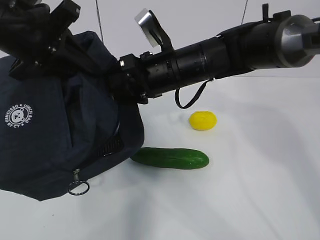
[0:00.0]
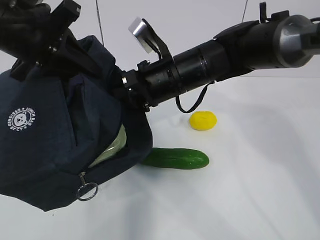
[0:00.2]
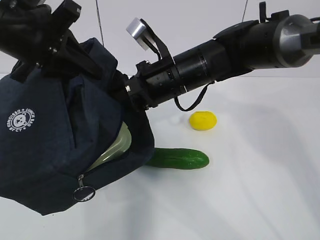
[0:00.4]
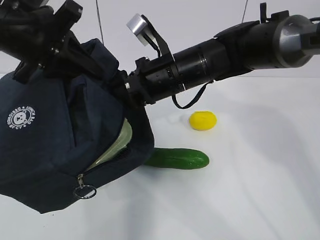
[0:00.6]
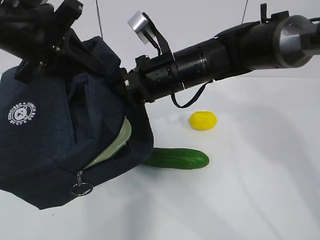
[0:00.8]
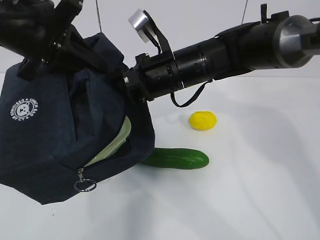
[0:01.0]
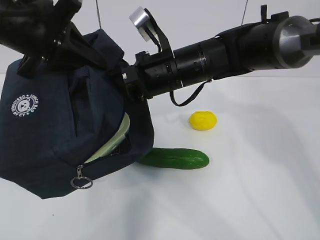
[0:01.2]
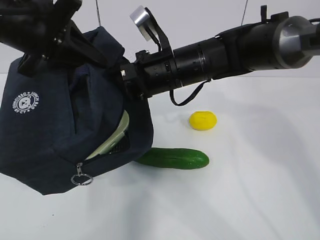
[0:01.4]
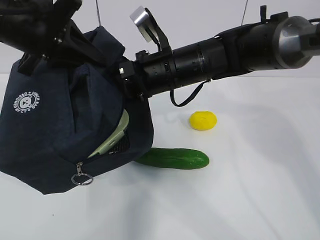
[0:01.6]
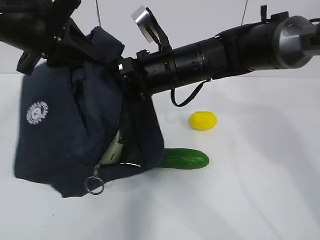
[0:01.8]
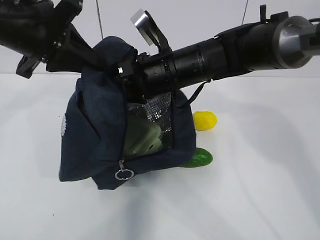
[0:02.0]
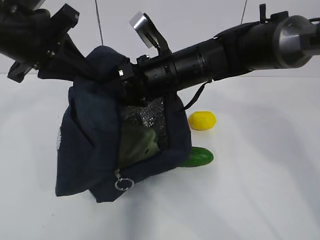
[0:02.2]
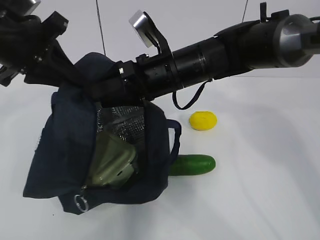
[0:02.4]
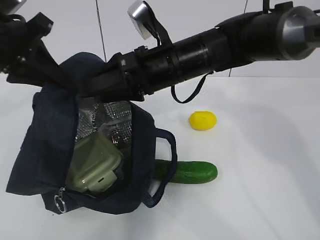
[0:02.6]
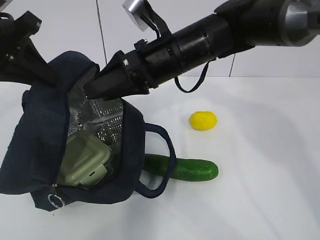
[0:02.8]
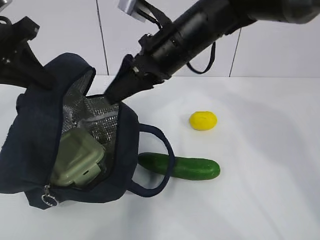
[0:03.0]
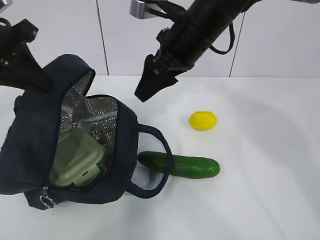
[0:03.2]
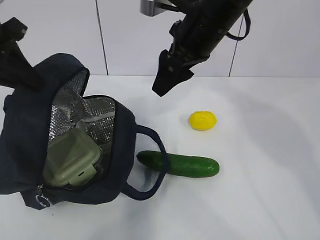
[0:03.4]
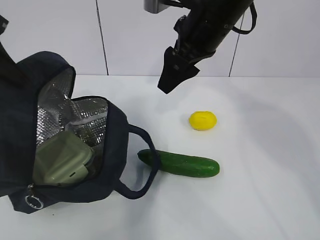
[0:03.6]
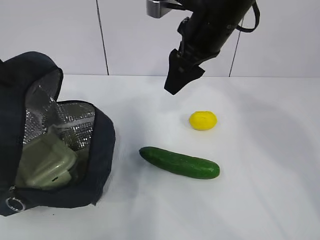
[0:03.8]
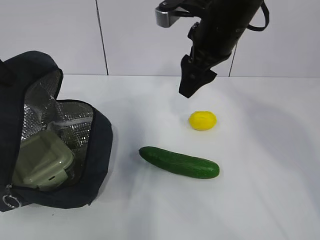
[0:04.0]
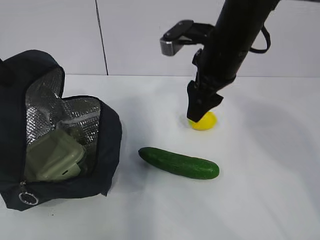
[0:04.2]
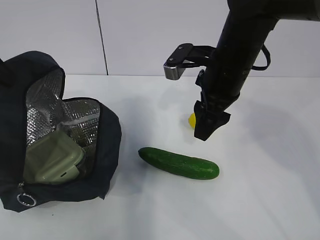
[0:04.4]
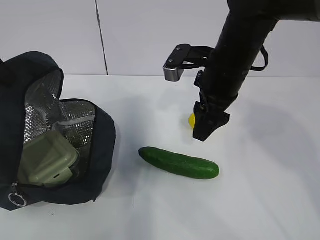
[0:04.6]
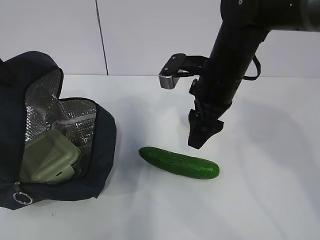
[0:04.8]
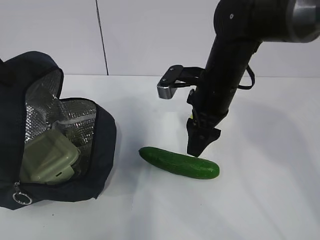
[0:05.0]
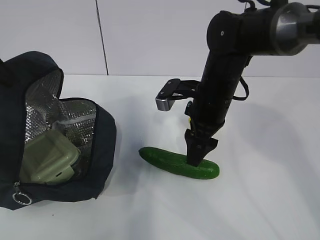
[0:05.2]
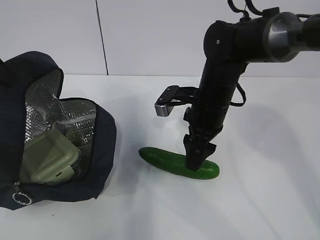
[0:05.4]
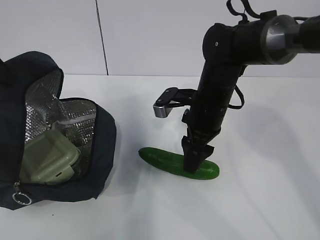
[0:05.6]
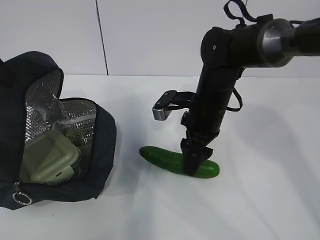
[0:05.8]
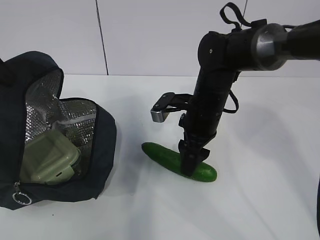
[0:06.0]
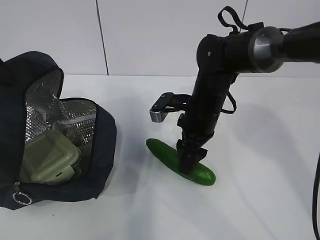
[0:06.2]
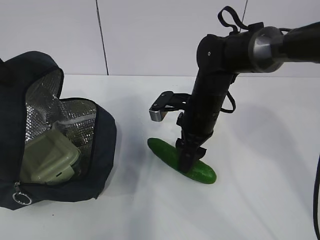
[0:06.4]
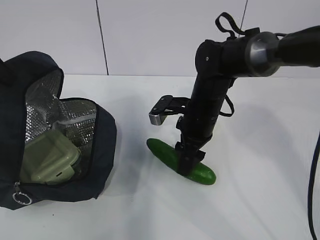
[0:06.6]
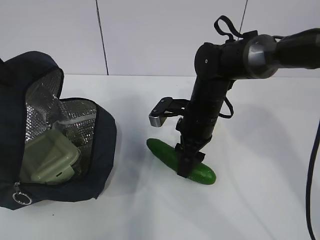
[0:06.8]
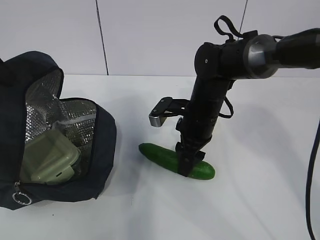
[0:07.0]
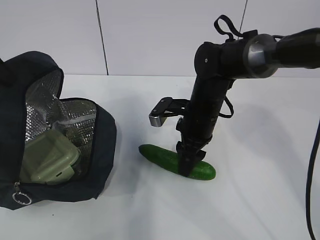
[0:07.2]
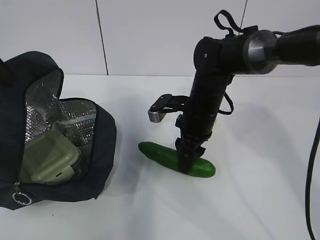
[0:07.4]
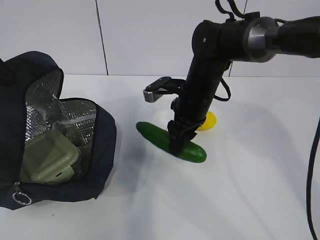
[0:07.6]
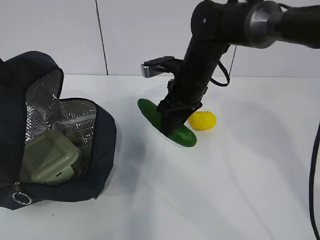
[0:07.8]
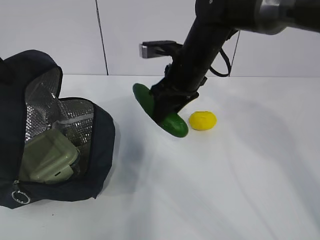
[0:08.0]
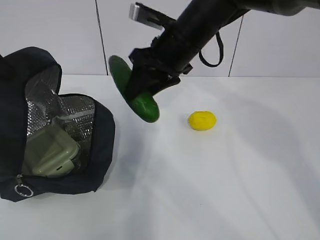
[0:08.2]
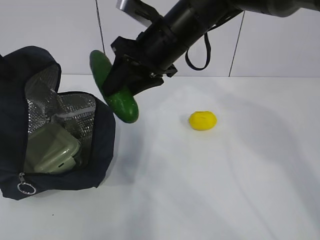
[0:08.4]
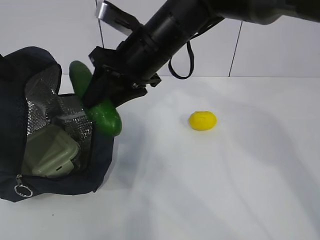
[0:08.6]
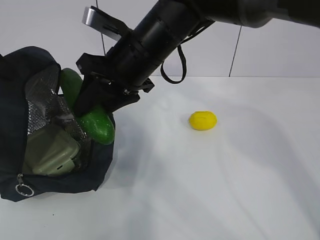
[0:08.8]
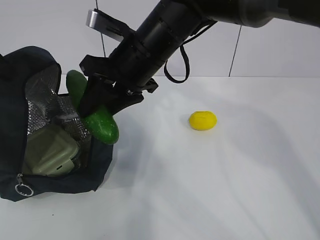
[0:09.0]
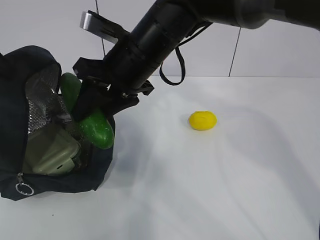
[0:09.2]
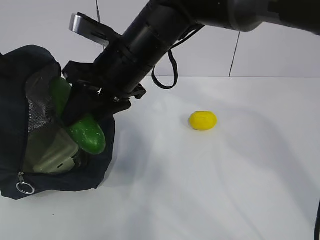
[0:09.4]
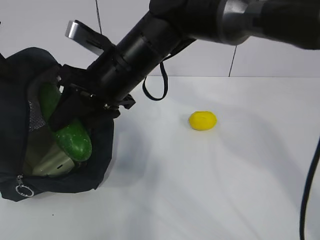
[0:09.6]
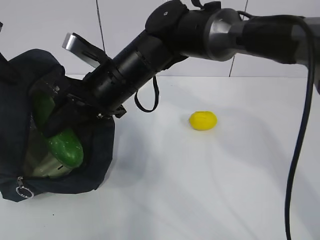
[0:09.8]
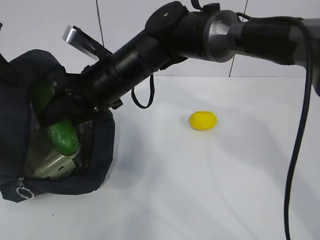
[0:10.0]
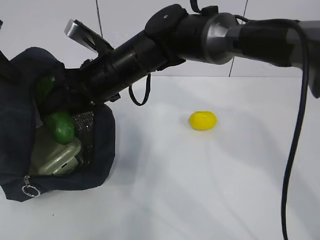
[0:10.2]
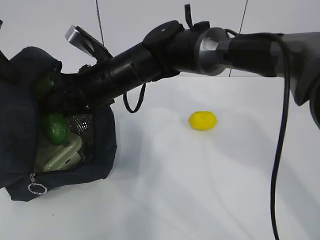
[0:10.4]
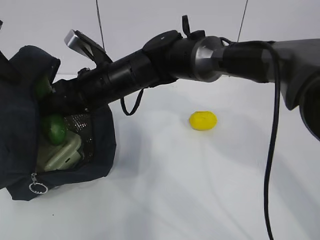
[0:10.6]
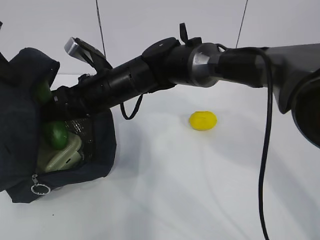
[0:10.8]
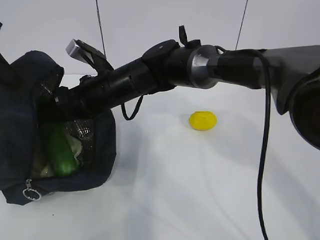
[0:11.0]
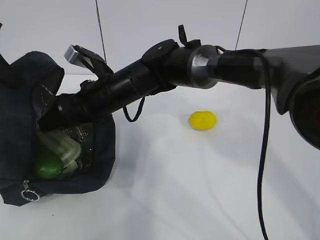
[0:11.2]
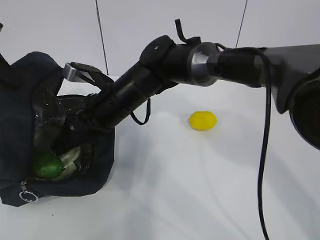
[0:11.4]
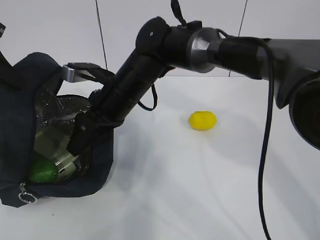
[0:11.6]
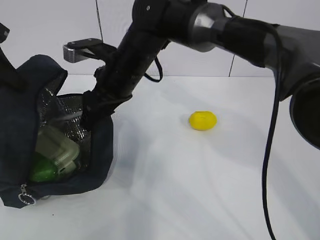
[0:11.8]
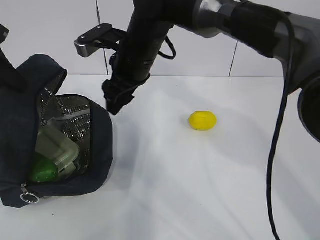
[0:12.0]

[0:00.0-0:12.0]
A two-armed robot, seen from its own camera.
Step, 0:02.0 to 0:05.2: Place it into the bag with your right hand.
Step, 0:05.4 to 0:08.6: Grab the lemon with your right hand.
0:00.0 to 0:01.6: There are only small adjustments of the grippers.
0:01.6 to 0:03.0: The left gripper heads to the left, covering approximately 5 cm.
0:03.0 to 0:04.4: The right gripper goes about 5 cm to the right.
0:04.4 to 0:06.0: The right gripper heads downward, covering approximately 10 cm.
0:06.0 to 0:07.6: The grippers move only a little.
0:07.6 to 0:09.0: The right gripper goes some 15 cm upward and to the left.
0:09.0 to 0:10.4: The right gripper is displaced downward and to the left by approximately 10 cm.
0:10.4 to 0:12.0: The right gripper moves about 5 cm.

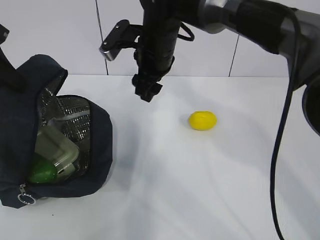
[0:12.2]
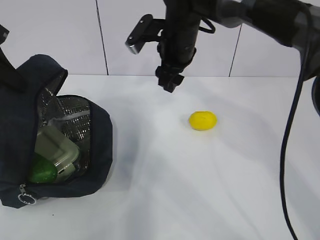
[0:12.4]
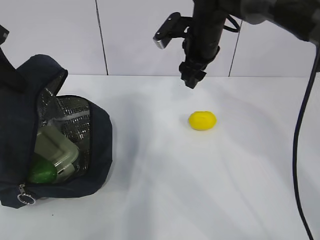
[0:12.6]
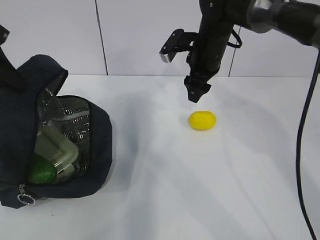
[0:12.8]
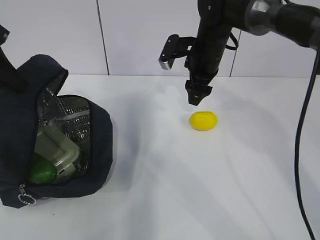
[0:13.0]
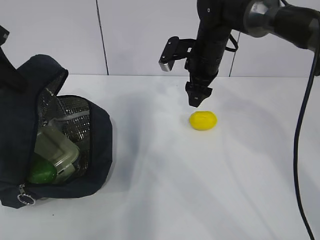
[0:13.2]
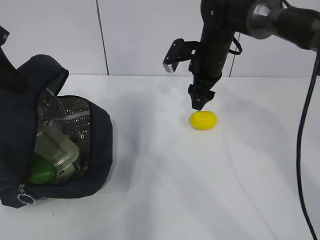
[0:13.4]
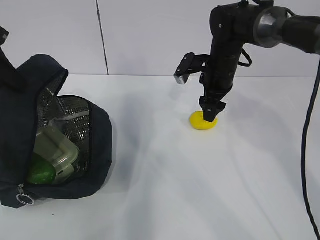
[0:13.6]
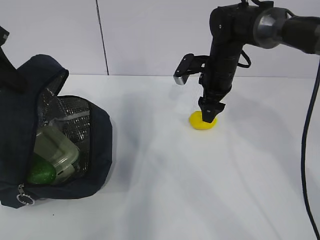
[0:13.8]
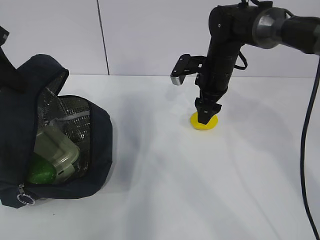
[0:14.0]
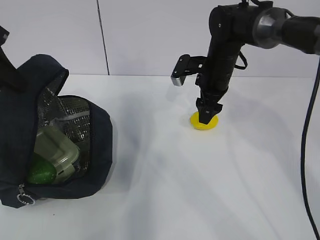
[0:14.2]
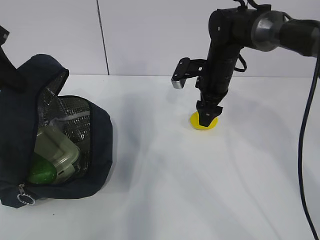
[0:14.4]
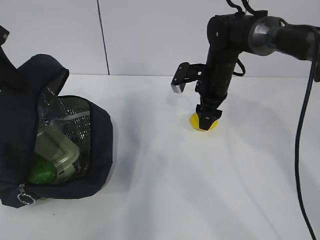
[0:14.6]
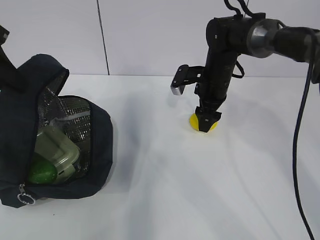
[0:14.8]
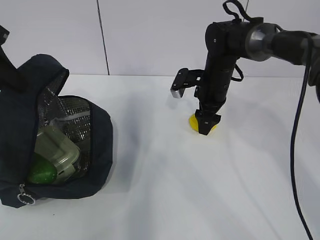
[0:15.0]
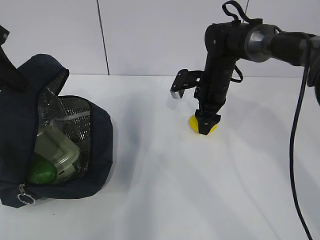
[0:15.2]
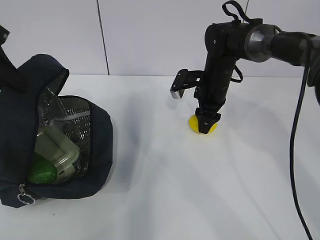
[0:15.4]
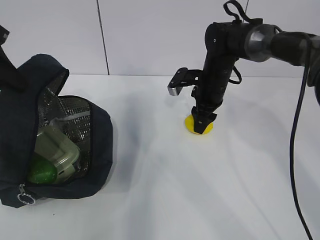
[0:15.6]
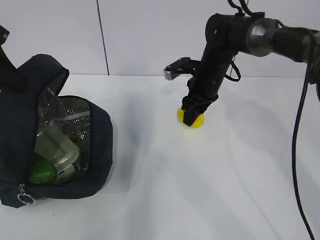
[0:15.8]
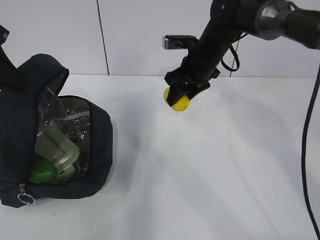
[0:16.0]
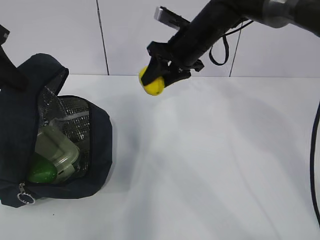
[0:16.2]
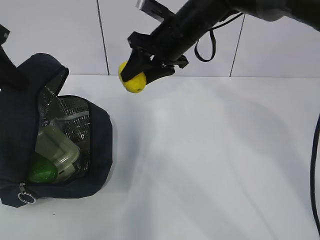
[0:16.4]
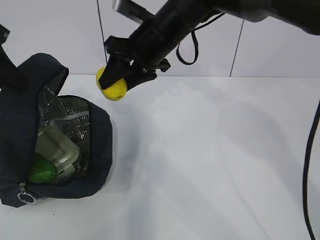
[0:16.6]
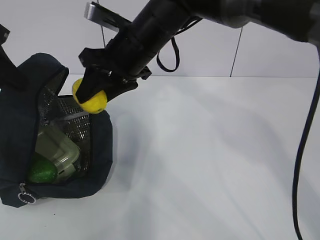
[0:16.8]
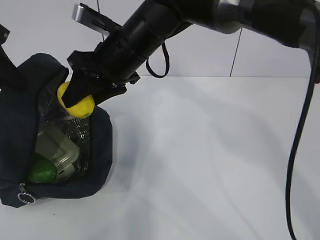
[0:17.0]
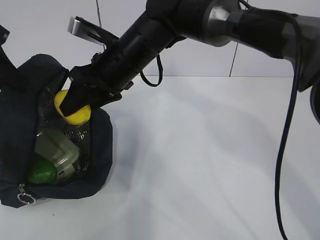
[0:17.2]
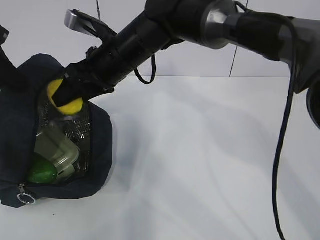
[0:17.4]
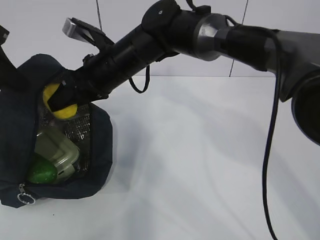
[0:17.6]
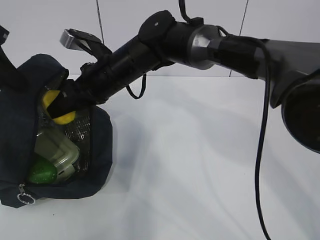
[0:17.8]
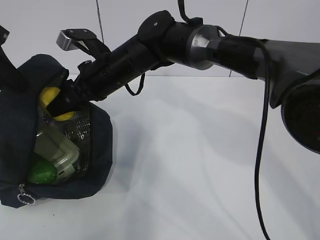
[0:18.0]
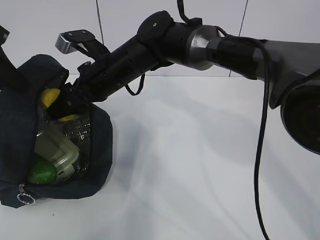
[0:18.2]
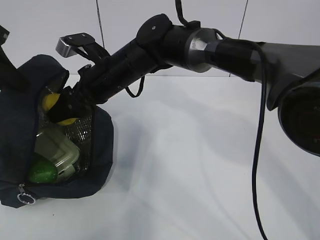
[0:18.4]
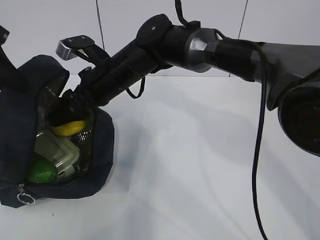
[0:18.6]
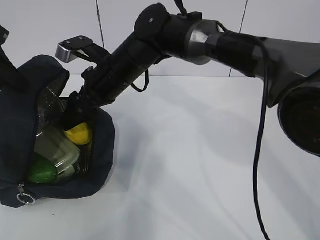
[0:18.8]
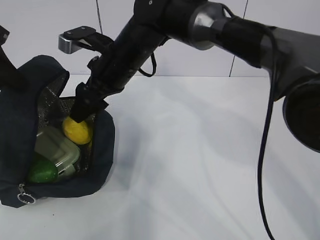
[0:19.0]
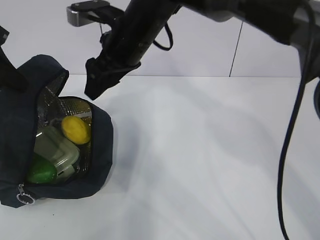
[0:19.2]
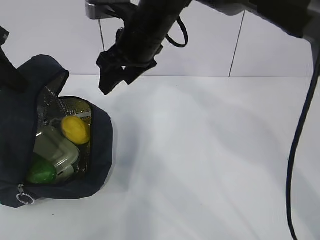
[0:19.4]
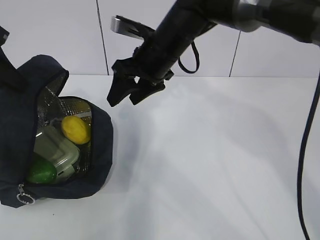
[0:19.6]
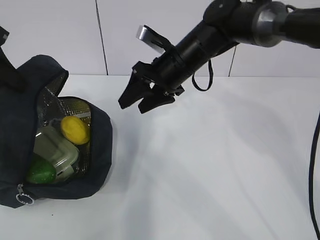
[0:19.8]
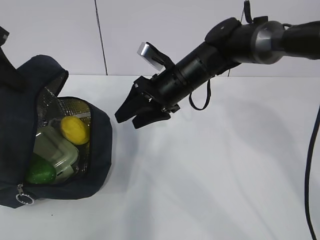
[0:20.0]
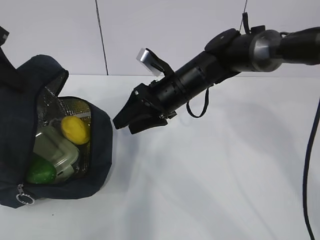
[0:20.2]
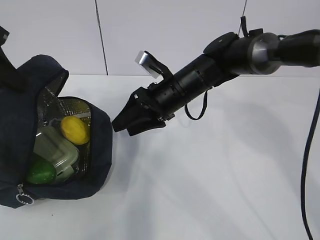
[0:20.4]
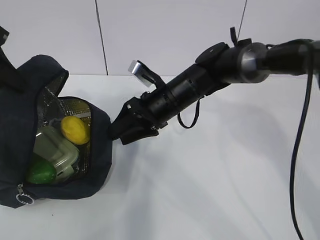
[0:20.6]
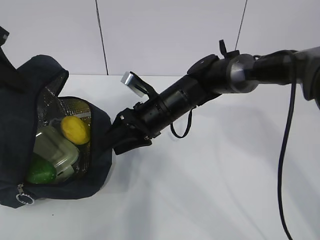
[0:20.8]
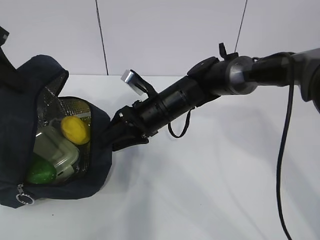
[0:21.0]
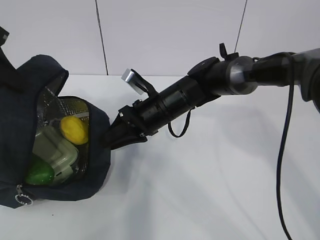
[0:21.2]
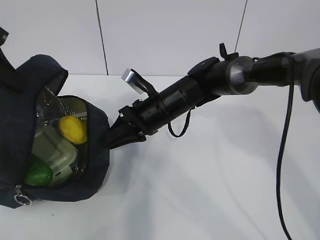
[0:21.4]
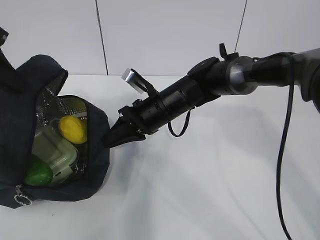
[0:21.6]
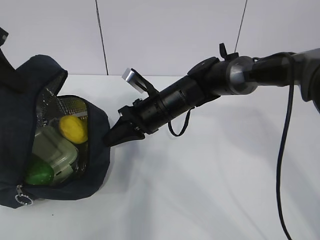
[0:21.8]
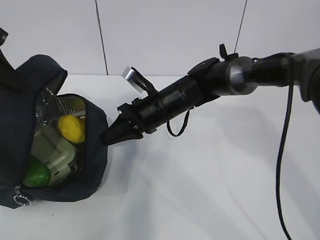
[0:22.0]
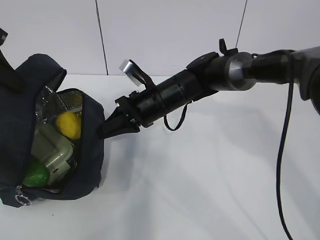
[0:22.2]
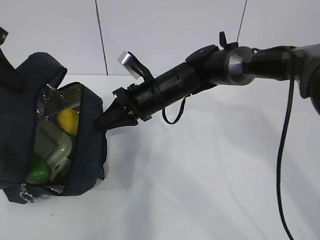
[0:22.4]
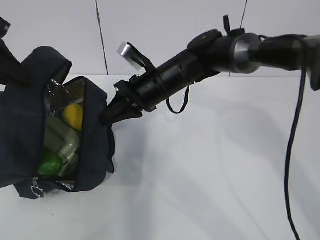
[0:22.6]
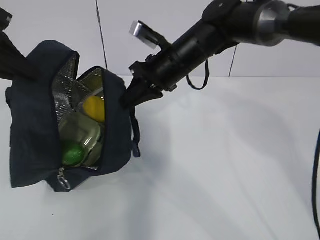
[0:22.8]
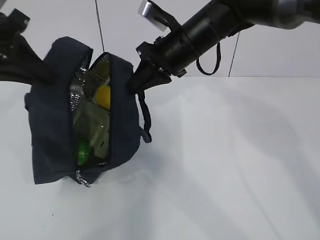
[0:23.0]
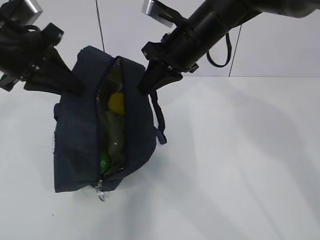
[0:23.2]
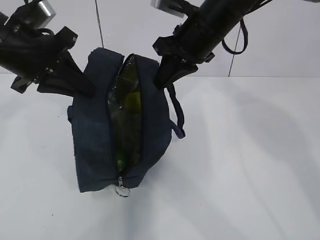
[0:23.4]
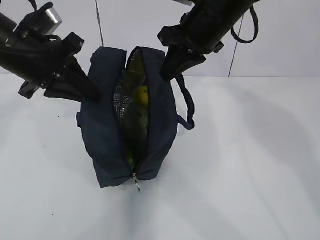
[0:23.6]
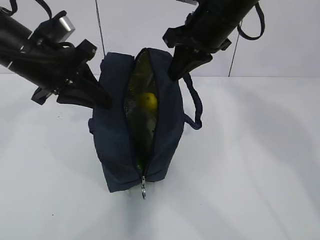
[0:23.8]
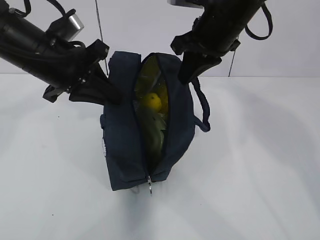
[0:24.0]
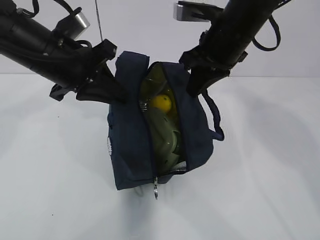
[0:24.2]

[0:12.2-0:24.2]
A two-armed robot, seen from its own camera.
Step, 0:12.2 to 0:14.0: Grab the lunch bag with your right hand.
Step, 0:14.2 to 0:19.2: Move the lunch bag to the right.
0:12.2 to 0:13.8: The right gripper travels to the right and downward by some 15 cm.
0:13.8 to 0:15.2: The grippers make only small movements.
0:15.2 to 0:16.6: The right gripper goes approximately 20 cm upward, to the left and backward.
0:16.6 to 0:18.2: The right gripper moves to the left and downward, roughly 10 cm.
0:18.2 to 0:19.8: The right gripper heads to the right, covering approximately 10 cm.
0:19.8 to 0:21.2: The right gripper heads downward, covering approximately 10 cm, and closes its fingers.
0:21.2 to 0:22.6: The right gripper closes.
0:22.6 to 0:24.2: The left gripper goes approximately 15 cm to the right; the right gripper goes some 15 cm upward and to the right.
